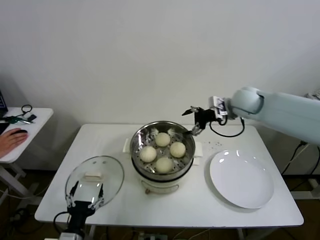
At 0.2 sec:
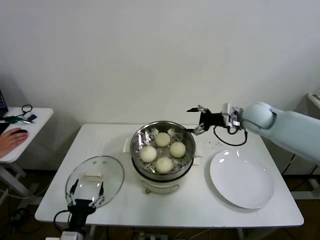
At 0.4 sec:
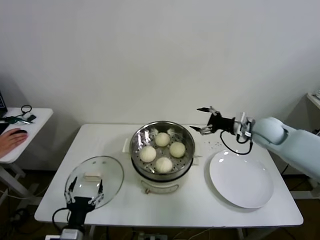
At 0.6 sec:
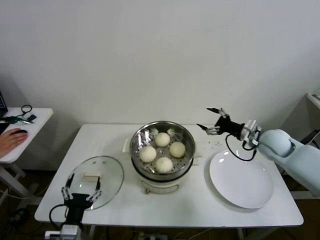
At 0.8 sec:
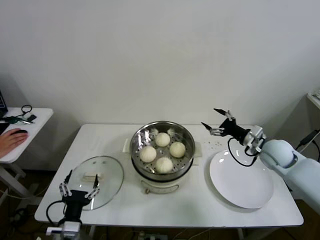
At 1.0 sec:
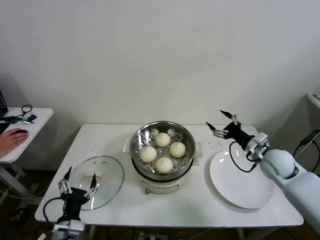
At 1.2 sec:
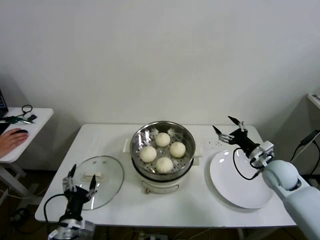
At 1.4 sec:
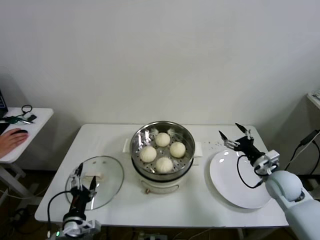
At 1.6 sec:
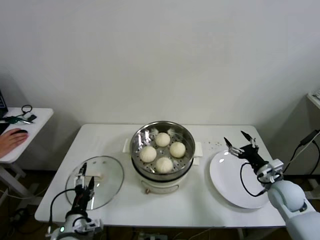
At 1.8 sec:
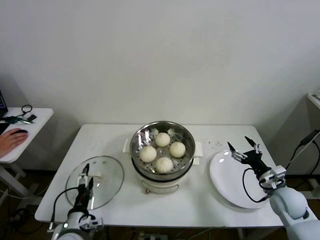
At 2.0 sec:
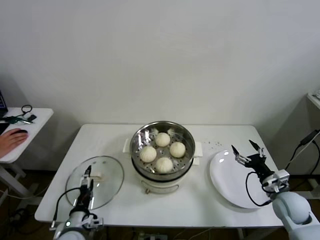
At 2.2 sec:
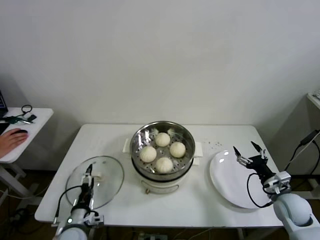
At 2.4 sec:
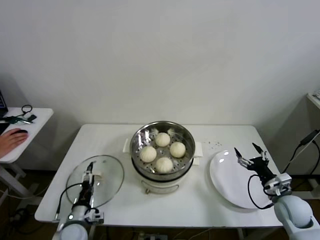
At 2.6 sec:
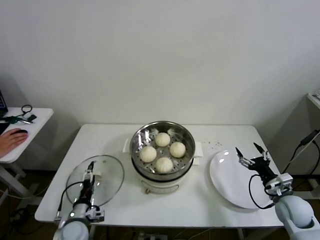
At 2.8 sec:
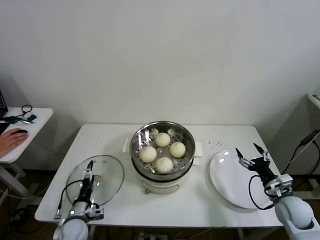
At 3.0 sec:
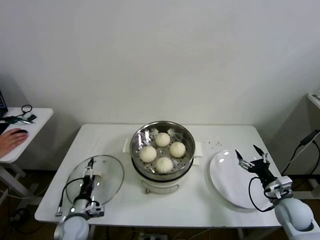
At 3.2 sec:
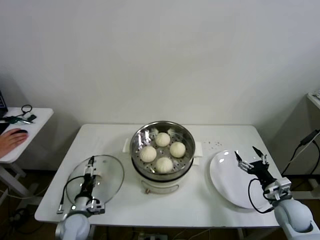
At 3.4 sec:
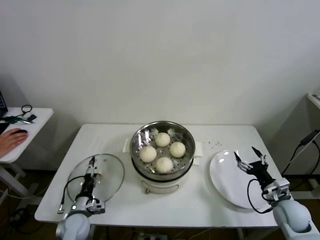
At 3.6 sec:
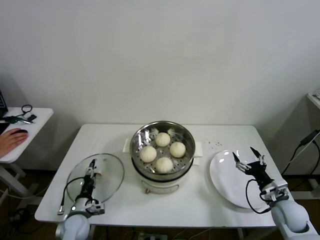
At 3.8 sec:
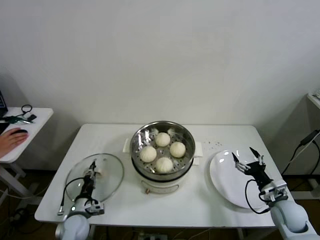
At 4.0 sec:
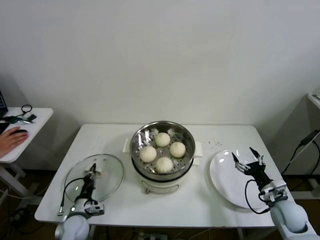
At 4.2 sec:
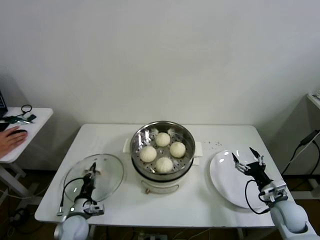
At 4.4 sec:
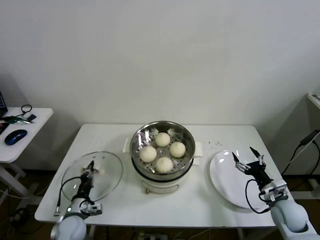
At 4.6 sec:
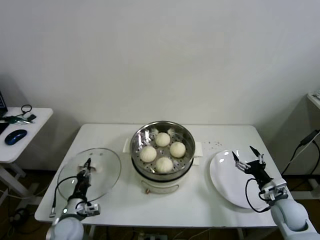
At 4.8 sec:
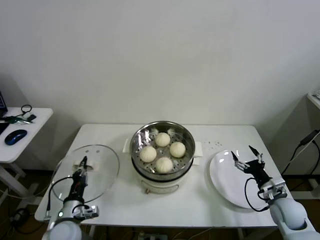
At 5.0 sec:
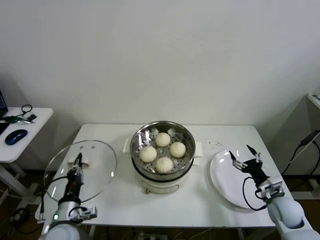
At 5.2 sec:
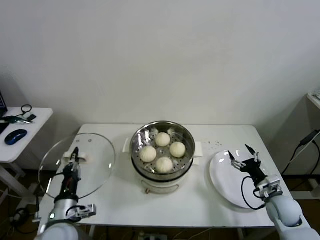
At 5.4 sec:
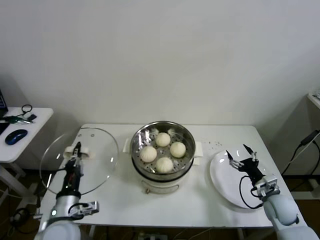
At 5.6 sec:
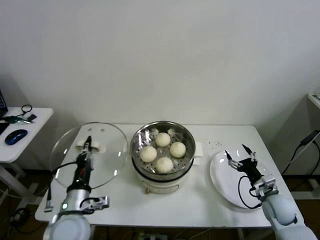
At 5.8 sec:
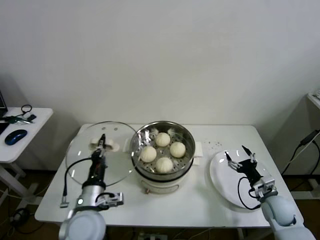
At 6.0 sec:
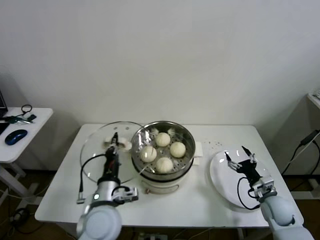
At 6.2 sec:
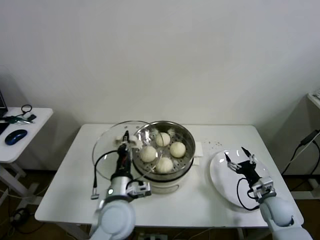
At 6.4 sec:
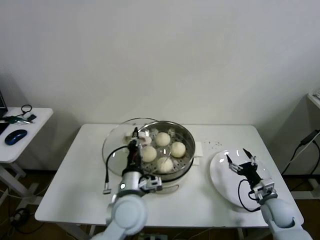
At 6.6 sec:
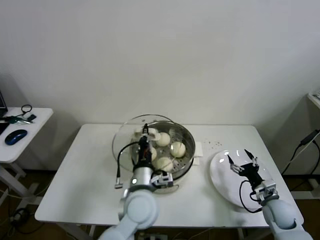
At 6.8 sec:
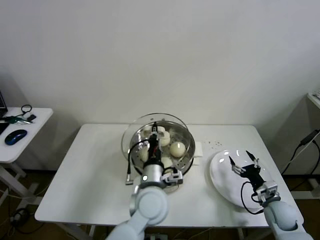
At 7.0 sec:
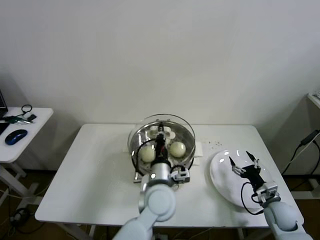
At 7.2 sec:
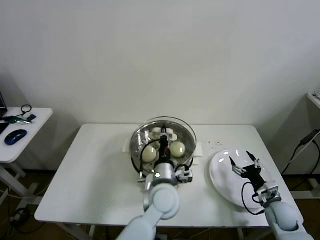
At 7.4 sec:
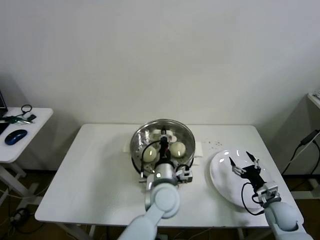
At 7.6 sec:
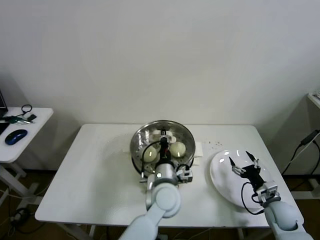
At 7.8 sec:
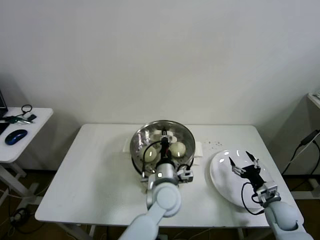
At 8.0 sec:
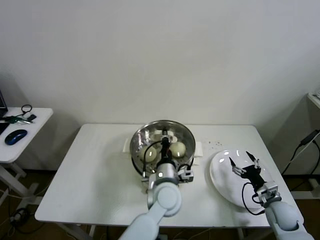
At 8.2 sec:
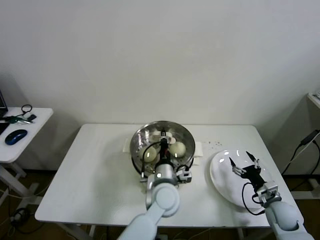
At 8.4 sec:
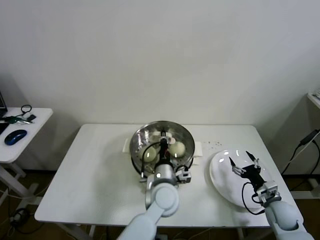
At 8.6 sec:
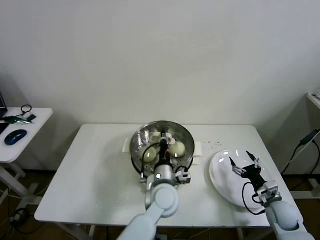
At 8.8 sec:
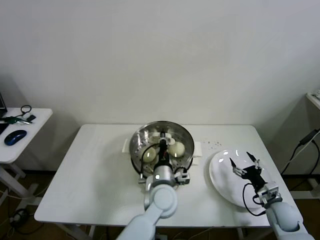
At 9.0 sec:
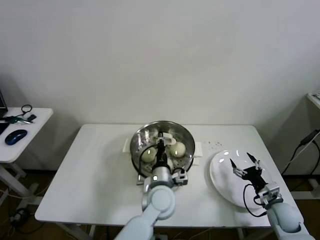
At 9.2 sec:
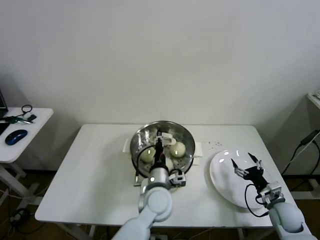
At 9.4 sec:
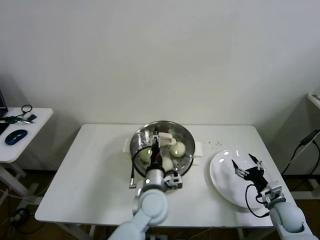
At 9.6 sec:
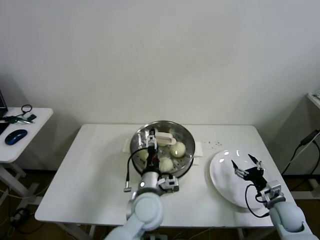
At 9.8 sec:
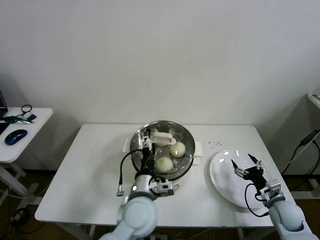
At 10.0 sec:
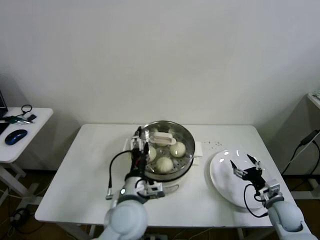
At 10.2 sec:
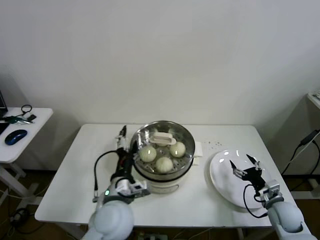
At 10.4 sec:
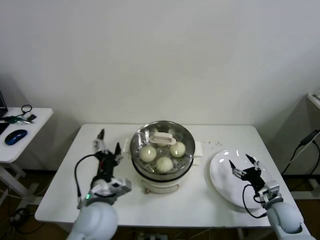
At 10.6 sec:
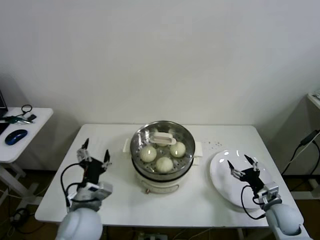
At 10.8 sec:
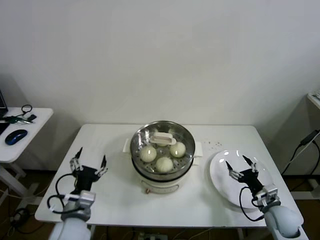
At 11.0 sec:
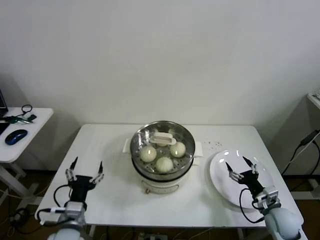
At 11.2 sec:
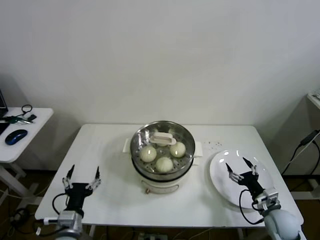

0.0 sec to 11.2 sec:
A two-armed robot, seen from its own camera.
Step, 0.0 sec to 4.0 sec: Grasp the pot lid with left gripper.
Step, 4.2 sec to 9.0 sec: Place the pot lid on the steamer with left gripper.
0.0 sec to 1.6 sec: The right gripper moves downward, backward and to the right, roughly 35 cm; the left gripper travels forward by approximately 5 cm.
1.6 sec to 3.2 sec: The left gripper shifts about 10 cm forward and downward, while the right gripper changes place by about 5 cm.
3.2 sec to 4.8 sec: The left gripper moves upward, roughly 5 cm, and closes its fingers.
4.8 sec to 6.4 sec: The left gripper is displaced to the right and upward by approximately 25 cm.
6.4 sec to 8.0 sec: The left gripper goes roughly 10 cm to the right and forward.
8.0 sec to 9.6 sec: The left gripper shifts by approximately 5 cm, and opens its fingers.
9.6 sec to 11.2 sec: The left gripper is displaced to the left and backward by about 25 cm.
